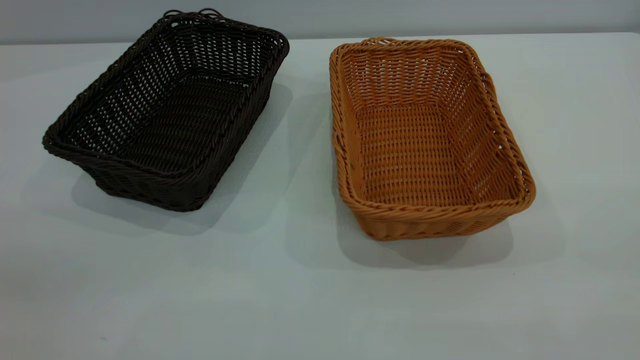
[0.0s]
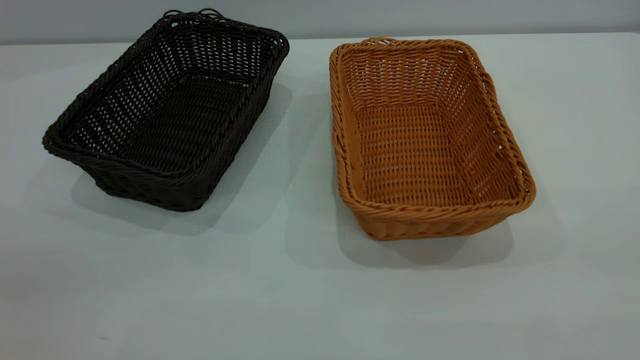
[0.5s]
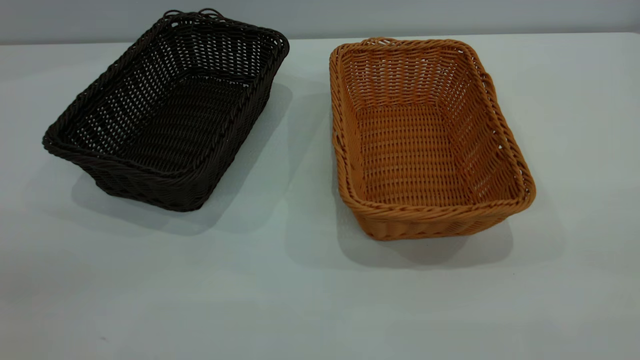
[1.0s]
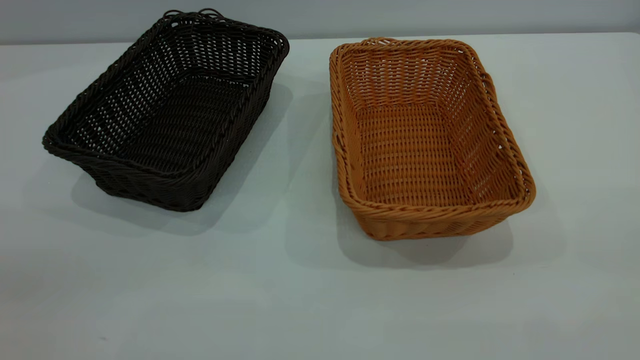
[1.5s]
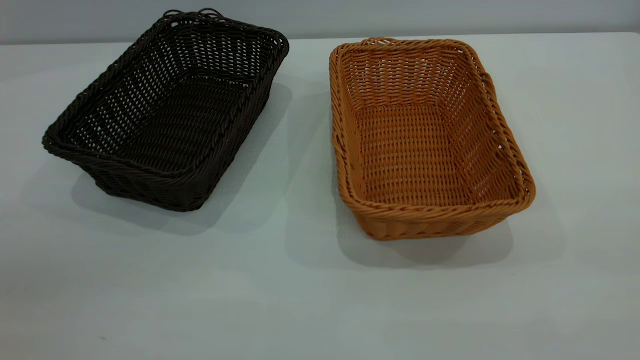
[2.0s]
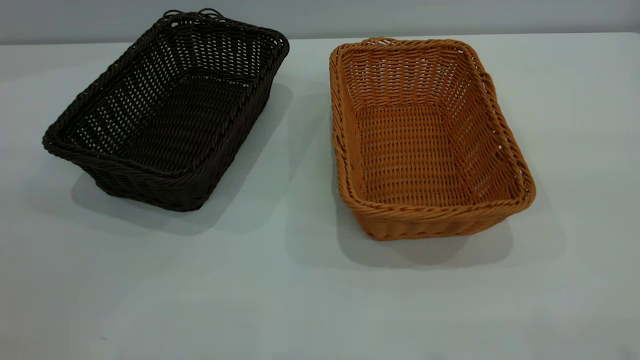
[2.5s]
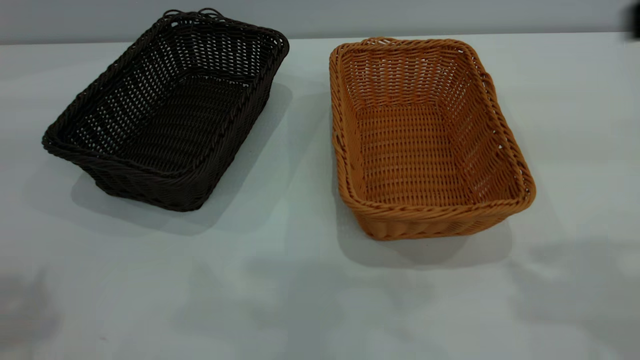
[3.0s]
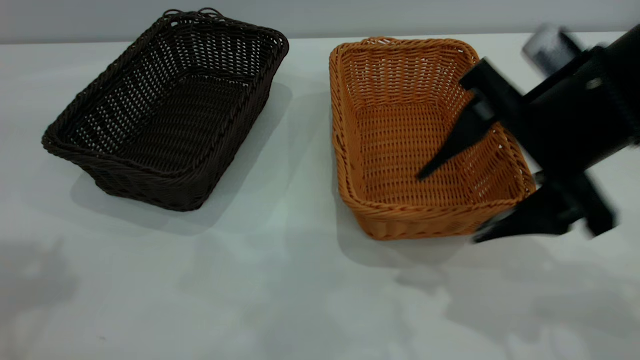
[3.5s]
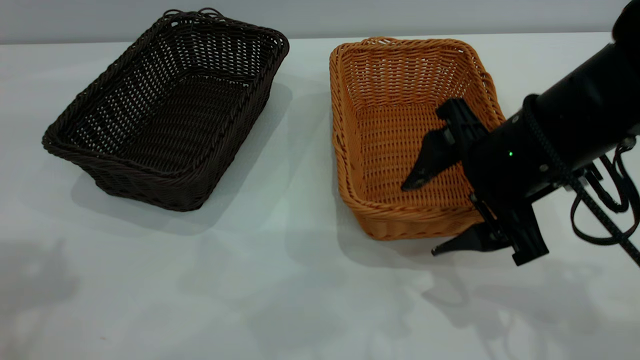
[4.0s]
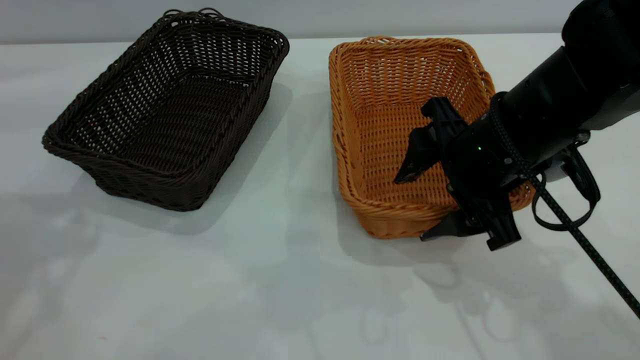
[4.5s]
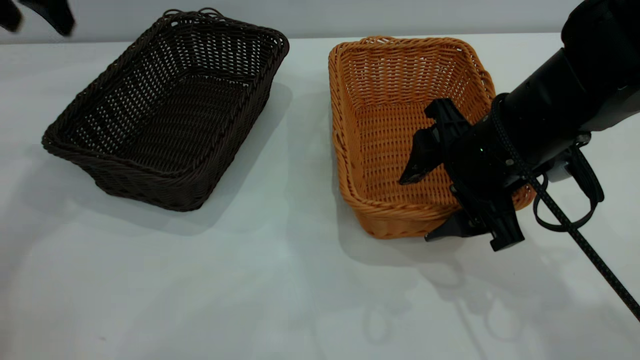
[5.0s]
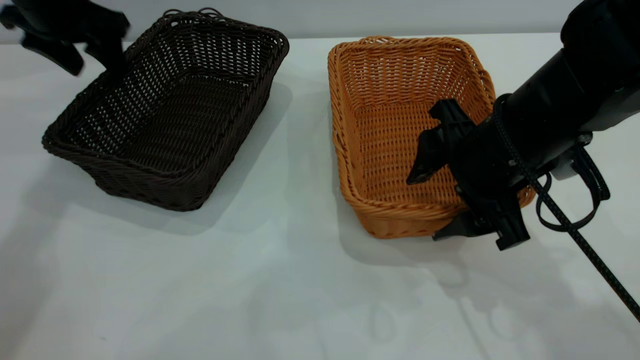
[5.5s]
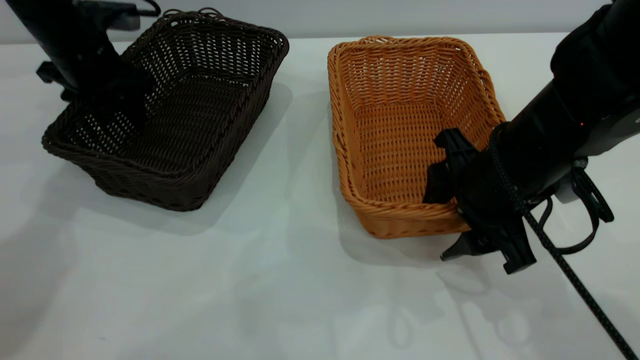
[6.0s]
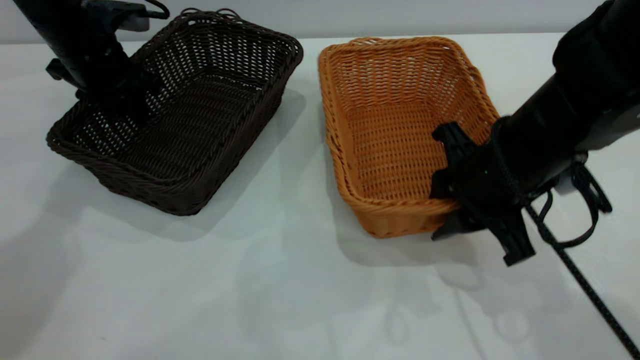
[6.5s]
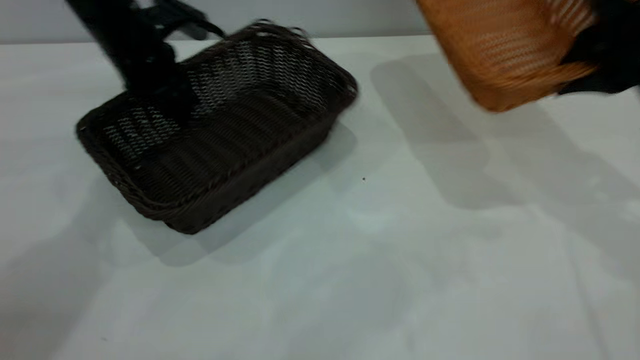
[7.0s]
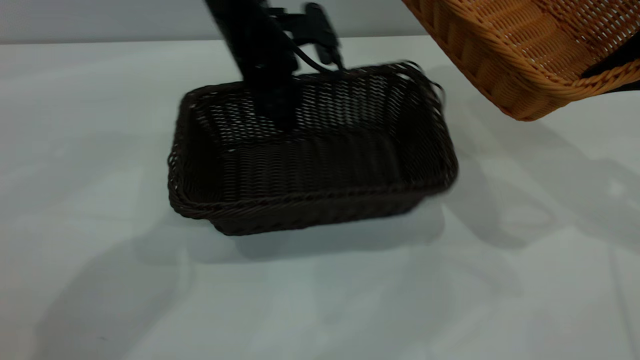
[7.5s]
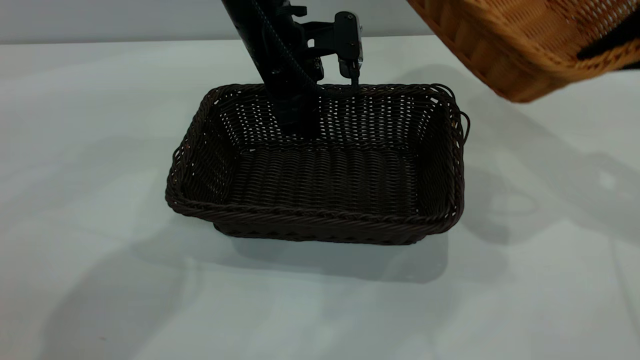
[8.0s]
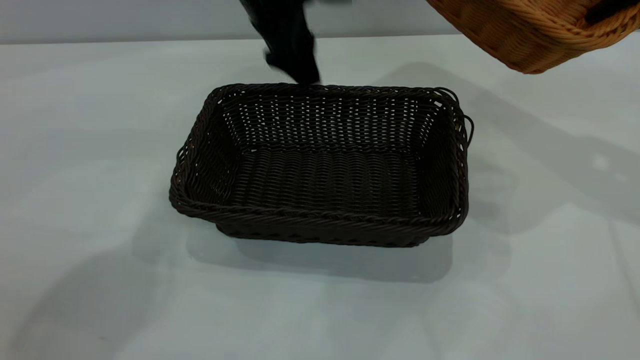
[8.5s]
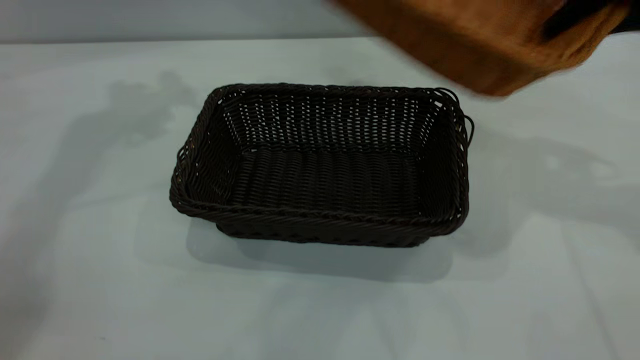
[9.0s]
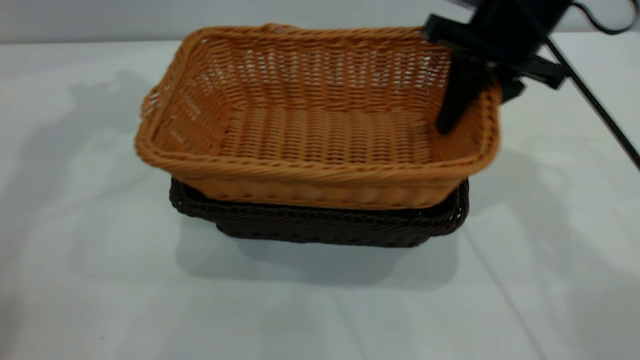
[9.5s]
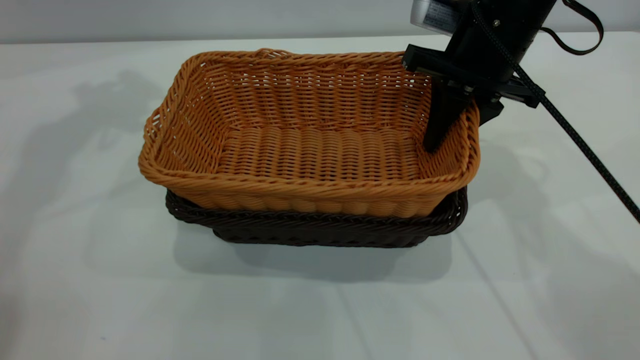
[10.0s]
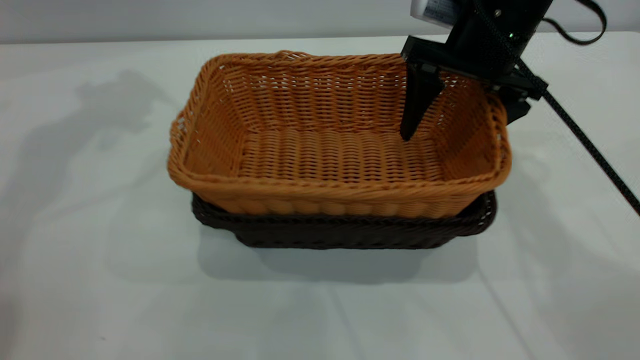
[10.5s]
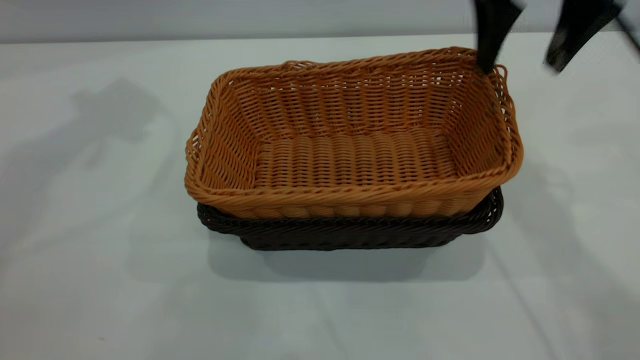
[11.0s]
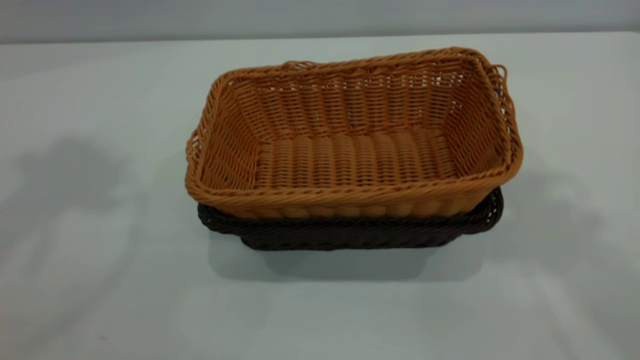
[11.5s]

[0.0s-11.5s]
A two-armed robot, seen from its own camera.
Task of the whole recording: the left gripper grasp the black basket and place it in the center of the table, the right gripper grasp the brown basket and place it inside the black one.
Step, 0.0s to 6.5s: Pick up the light basket with the right gripper.
Step, 7.0s to 8.0s: Move the dark basket to the center of view.
Step, 9.0s to 11.0s: Place the light basket on the dark basket.
0.0s to 2.0s: Neither gripper changes place.
2.0s to 4.0s: The right gripper heads forward, downward and to the left, covering about 35 cm, while the left gripper travels forward by about 20 cm.
4.0s to 6.0s: The left gripper travels forward and downward by approximately 35 cm, and closes its fingers.
6.0s to 7.5s: The left gripper travels to the right by approximately 20 cm, and closes its fingers; the right gripper moves to the right and upward, some 20 cm, and closes up.
7.5s to 9.5s: The right gripper shifts roughly 20 cm to the left and forward. Meanwhile the left gripper heads upward and to the left, covering approximately 35 cm, and opens up.
9.5s to 11.5s: The grippers both shift upward and backward by about 30 cm. The right gripper opens its fingers.
